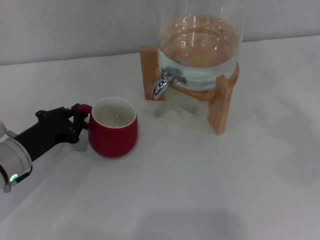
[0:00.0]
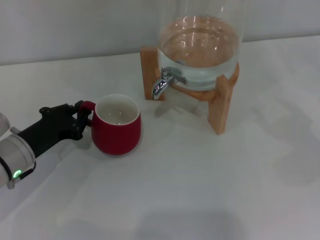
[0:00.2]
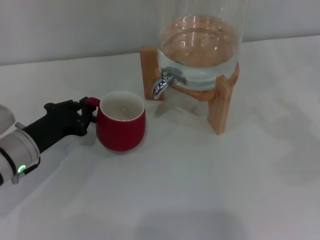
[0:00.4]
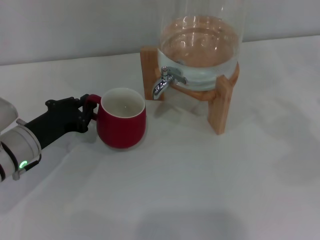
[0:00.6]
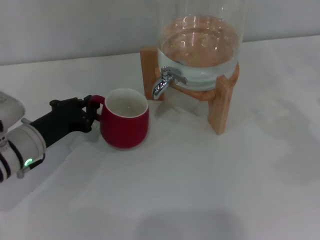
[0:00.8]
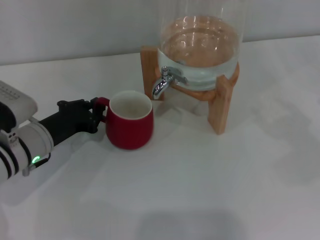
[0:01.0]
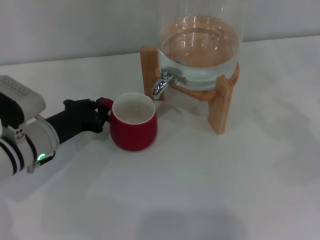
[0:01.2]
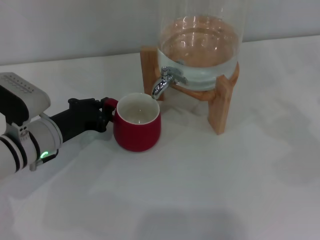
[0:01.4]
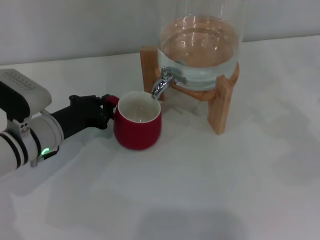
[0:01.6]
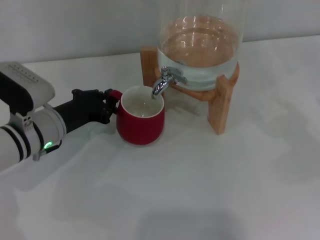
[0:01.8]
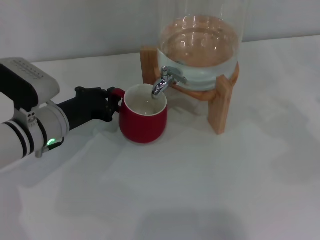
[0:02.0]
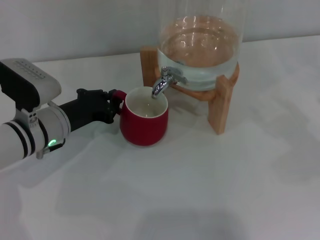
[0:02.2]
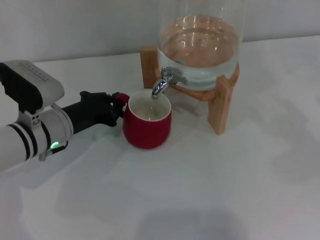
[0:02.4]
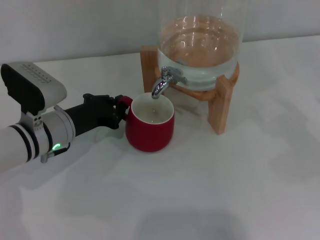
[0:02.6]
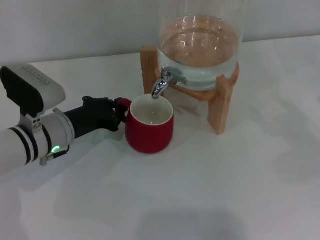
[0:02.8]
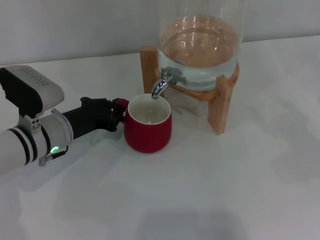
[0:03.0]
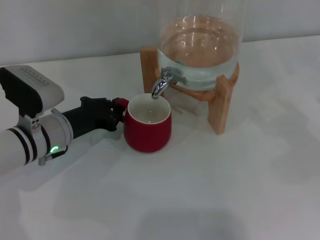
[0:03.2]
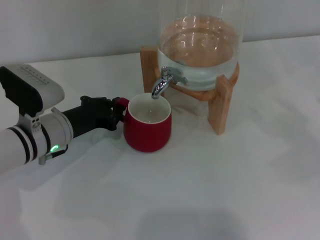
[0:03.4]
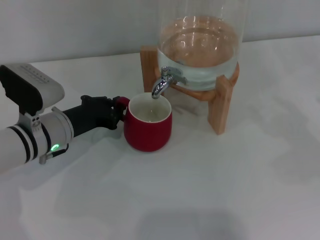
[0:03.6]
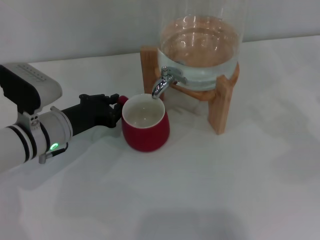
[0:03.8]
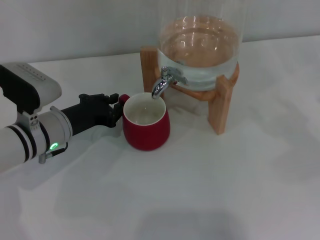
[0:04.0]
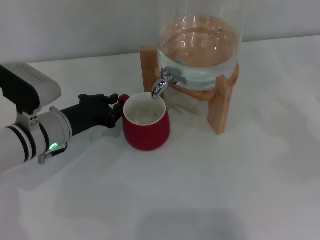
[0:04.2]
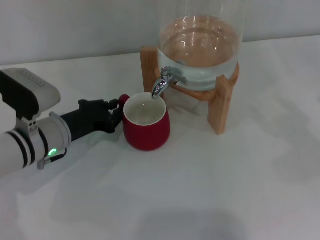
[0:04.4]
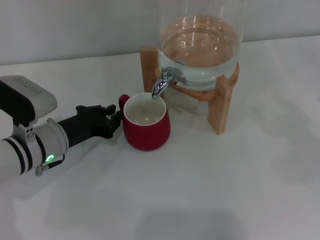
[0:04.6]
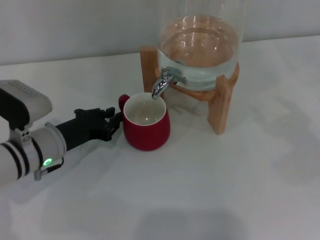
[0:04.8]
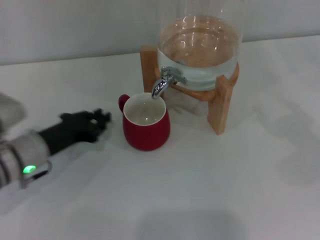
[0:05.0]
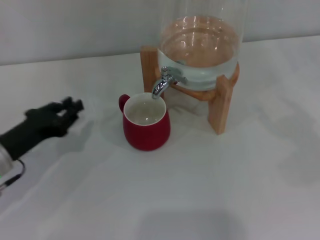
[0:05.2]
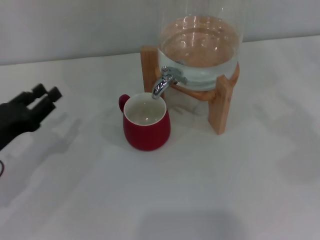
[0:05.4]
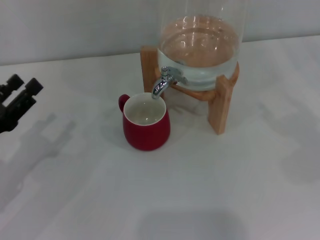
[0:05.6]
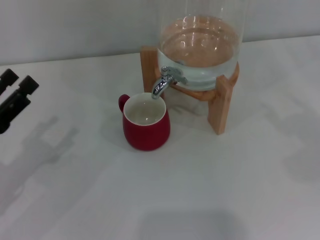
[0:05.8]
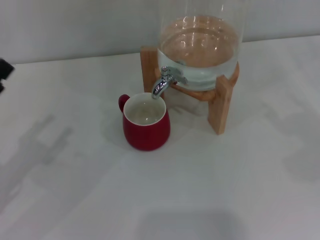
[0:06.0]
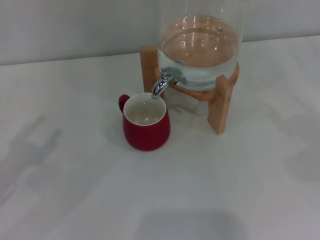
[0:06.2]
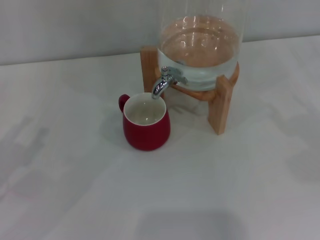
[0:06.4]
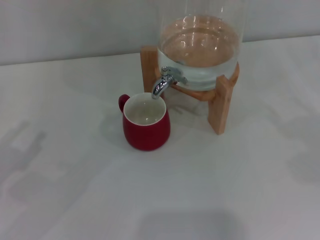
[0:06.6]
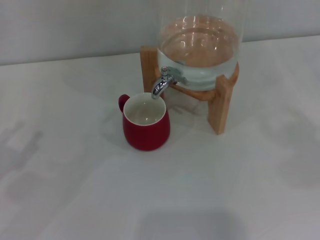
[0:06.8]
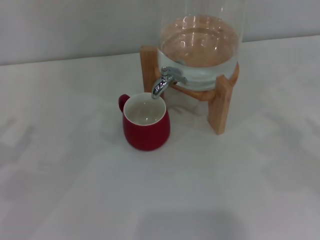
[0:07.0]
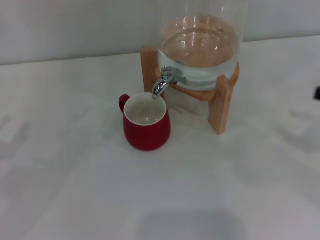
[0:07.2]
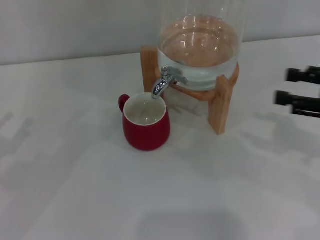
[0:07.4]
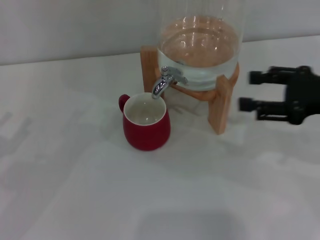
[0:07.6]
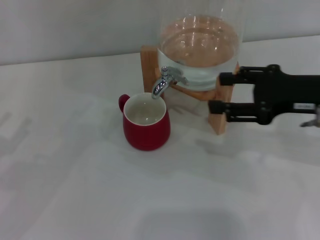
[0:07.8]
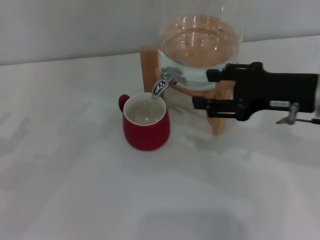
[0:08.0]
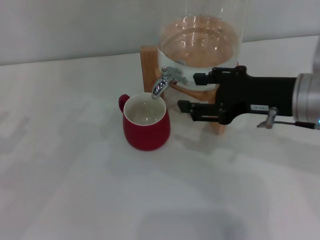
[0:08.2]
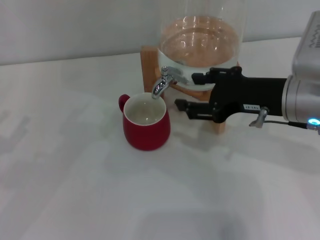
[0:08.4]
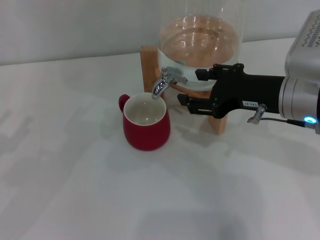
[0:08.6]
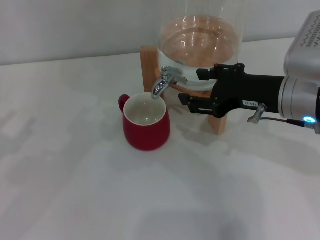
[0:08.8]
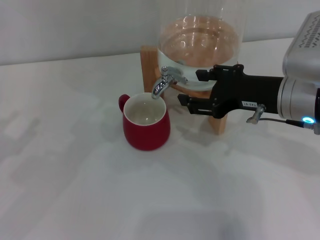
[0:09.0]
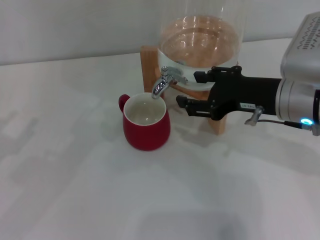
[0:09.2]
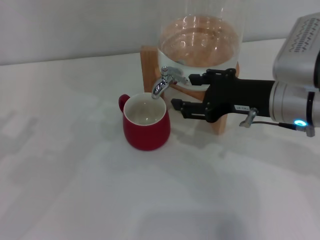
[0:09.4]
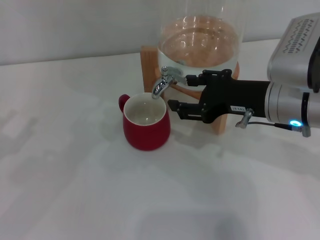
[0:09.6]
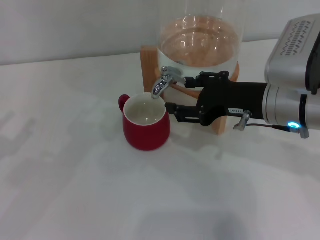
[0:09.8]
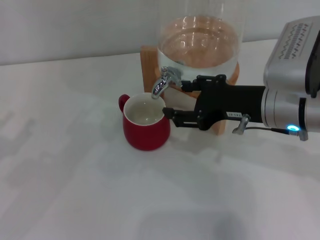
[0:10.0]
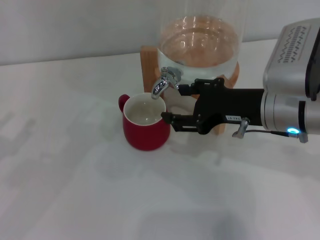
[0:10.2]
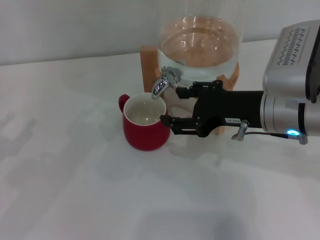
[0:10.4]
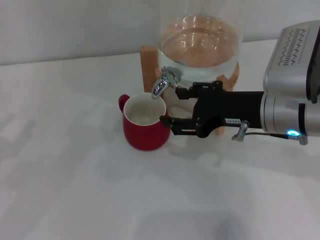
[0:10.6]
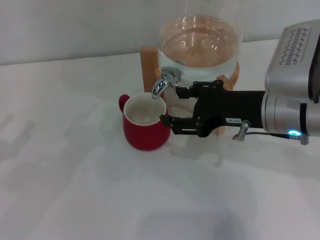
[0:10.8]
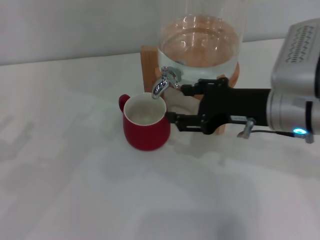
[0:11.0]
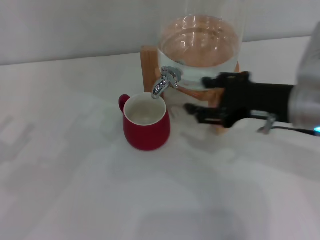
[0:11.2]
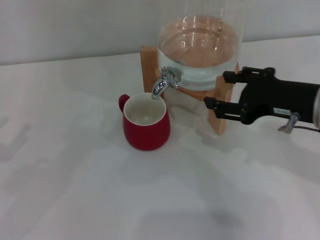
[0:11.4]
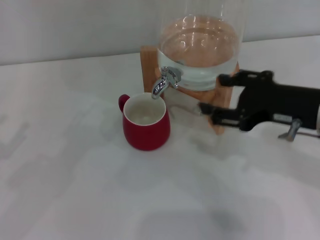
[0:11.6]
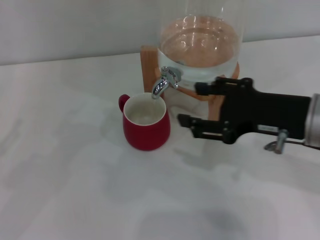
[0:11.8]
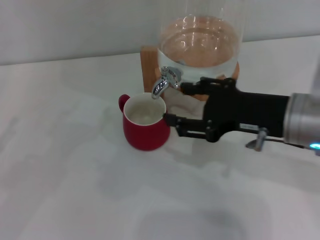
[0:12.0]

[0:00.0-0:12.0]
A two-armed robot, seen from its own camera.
Task of the whole recording: the left gripper pick up the red cup and place it horizontally under the faucet, the right gripper turn on the faucet to fill the cup, and then turn off the faucet.
Step, 0:00.0 to 0:04.8: Move the cup beneath the water dispenser nozzle with the left gripper.
Step, 0:05.2 to 0:11.6: Open the dispenser valve and fill the cup with water with the right gripper.
0:00.0 to 0:01.6: The left gripper moves roughly 5 cm.
0:01.6 to 0:03.0: The grippers move only a little.
0:03.0 to 0:04.4: Both grippers stay put.
0:04.4 to 0:06.0: The left gripper travels to the left, backward and upward by some 15 cm, and opens.
0:06.0 to 0:07.6: The right gripper is displaced to the left by about 15 cm.
0:07.6 to 0:09.0: The right gripper shifts approximately 10 cm to the left.
0:09.0 to 0:12.0: There are only small adjustments of the grippers.

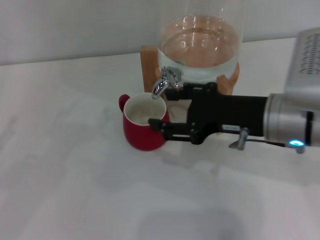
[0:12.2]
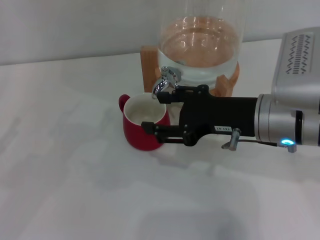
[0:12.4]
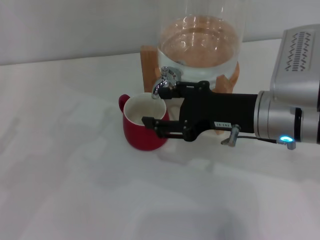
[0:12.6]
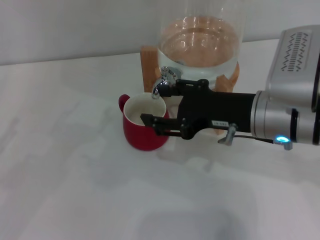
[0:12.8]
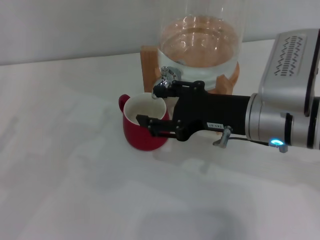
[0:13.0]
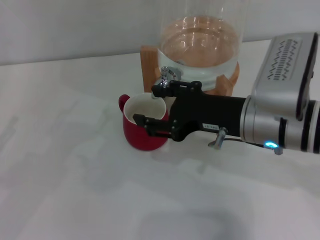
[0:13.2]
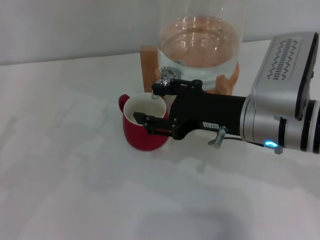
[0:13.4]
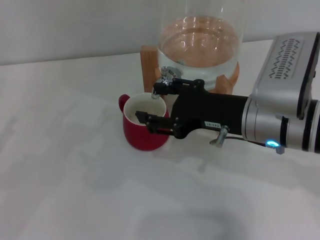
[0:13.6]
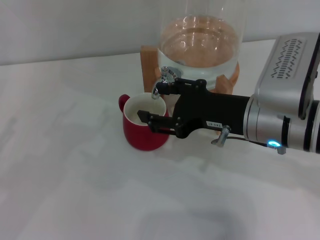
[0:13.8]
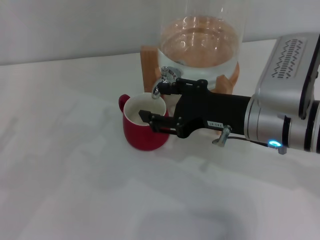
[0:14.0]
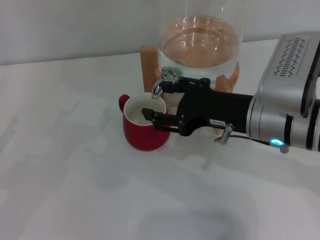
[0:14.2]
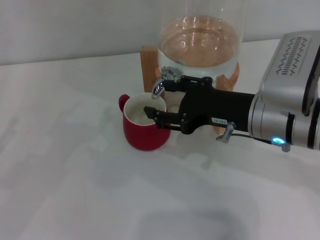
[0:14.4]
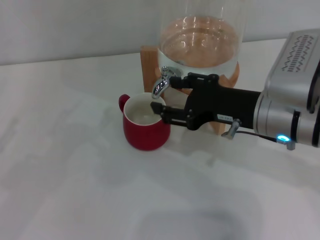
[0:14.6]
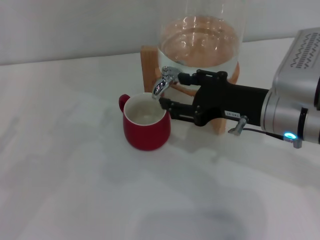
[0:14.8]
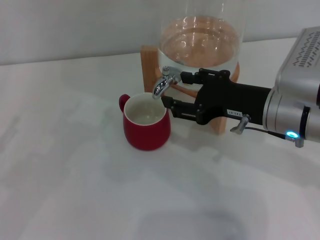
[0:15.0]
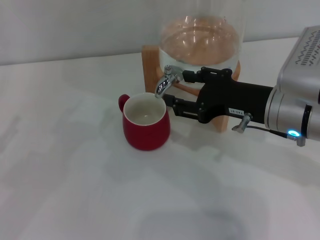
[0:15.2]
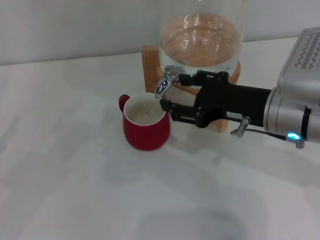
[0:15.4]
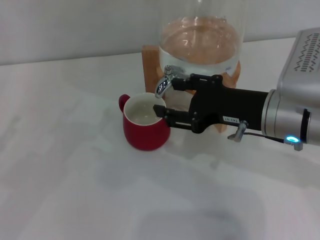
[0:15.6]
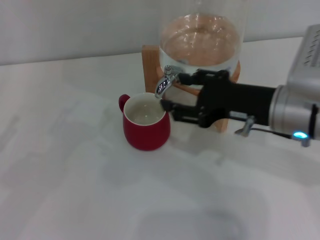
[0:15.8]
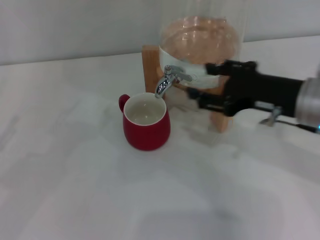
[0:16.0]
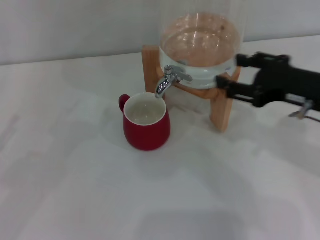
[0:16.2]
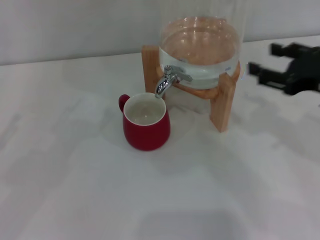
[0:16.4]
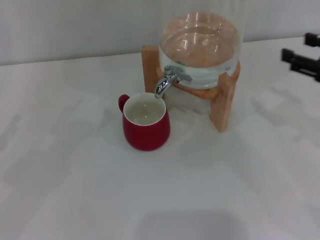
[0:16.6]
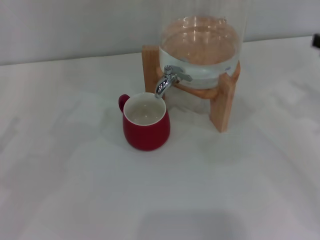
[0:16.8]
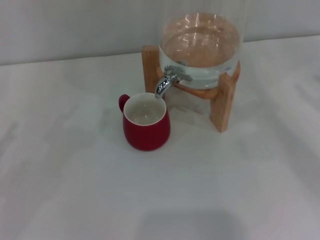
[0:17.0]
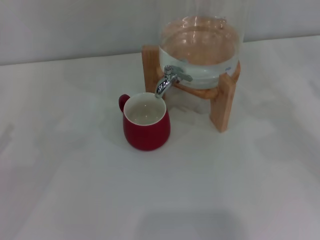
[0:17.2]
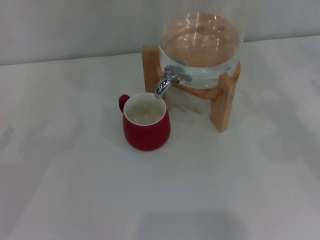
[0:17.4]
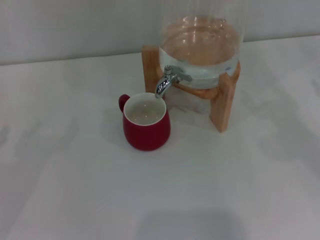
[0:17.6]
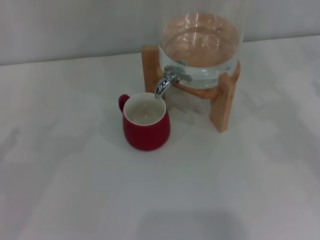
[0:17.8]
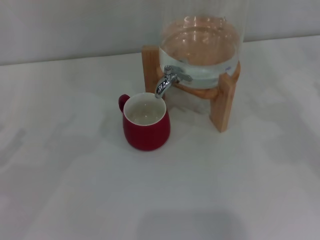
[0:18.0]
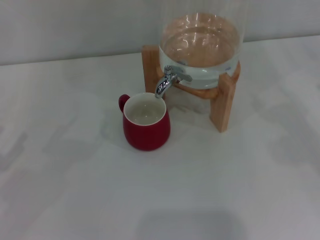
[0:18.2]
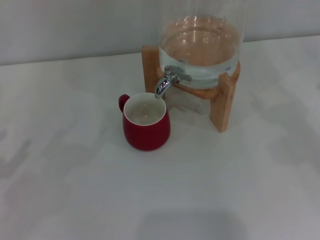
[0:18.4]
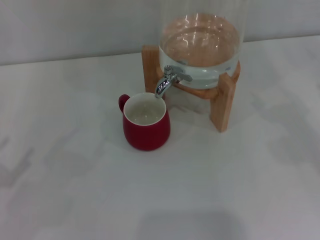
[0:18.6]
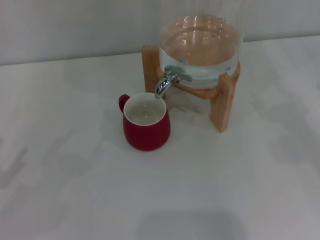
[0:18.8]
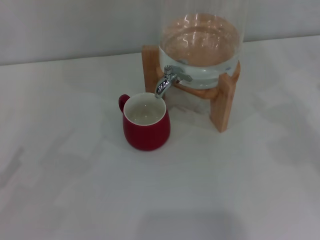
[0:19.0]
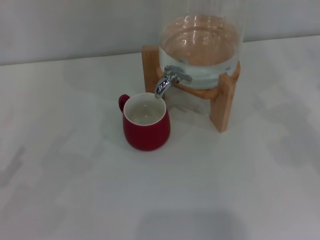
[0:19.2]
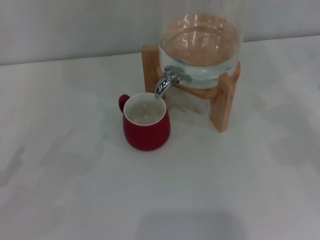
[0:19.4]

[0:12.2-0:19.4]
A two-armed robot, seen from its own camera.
Task of the whole recording: the left gripper pick up the red cup and place it horizontally under the faucet, the right gripper turn on the faucet to fill the cup, and then turn off the faucet.
Step, 0:12.2 to 0:15.8: Close the dispenser valve with the right gripper.
0:12.2 to 0:15.0: There are only small adjustments of the grippers.
0:15.0 to 0:16.6: The right gripper shifts about 15 cm to the right.
0:16.6 to 0:18.0: The right gripper goes roughly 10 cm to the right.
